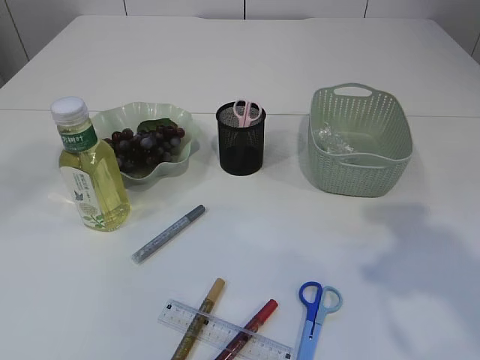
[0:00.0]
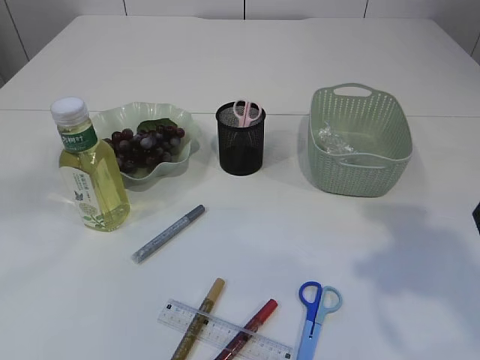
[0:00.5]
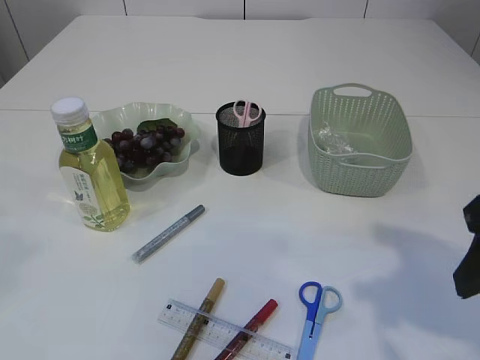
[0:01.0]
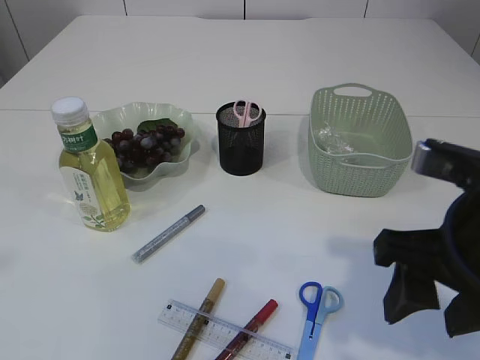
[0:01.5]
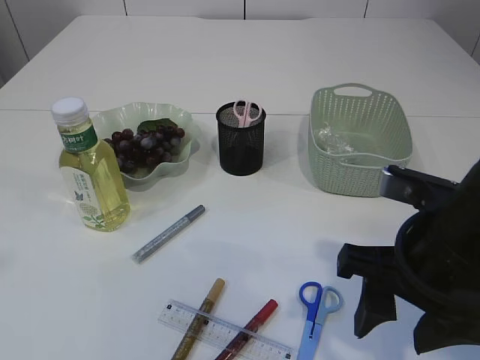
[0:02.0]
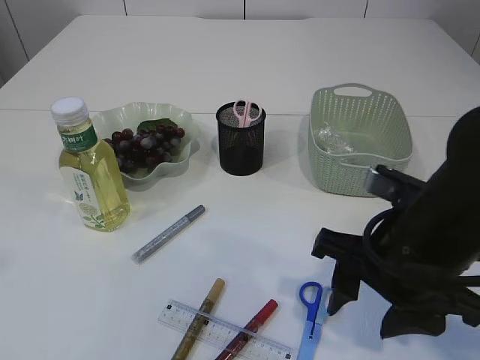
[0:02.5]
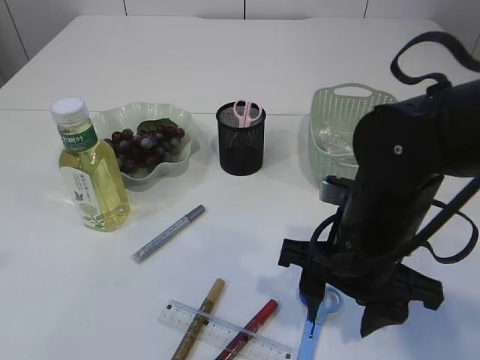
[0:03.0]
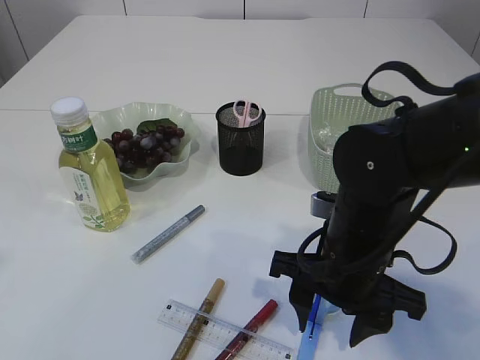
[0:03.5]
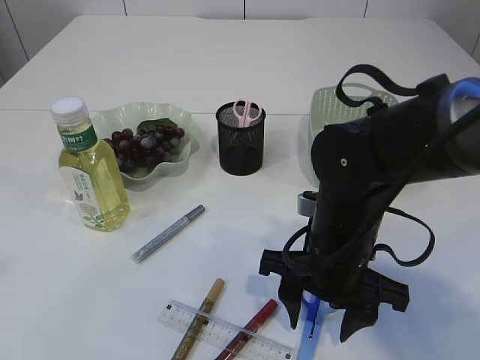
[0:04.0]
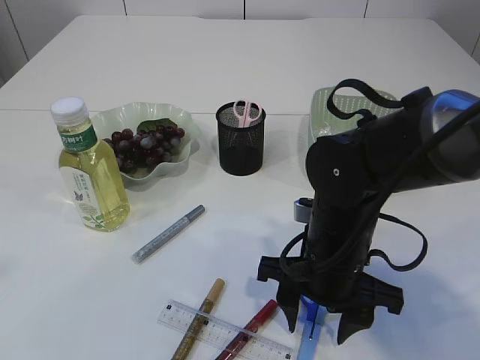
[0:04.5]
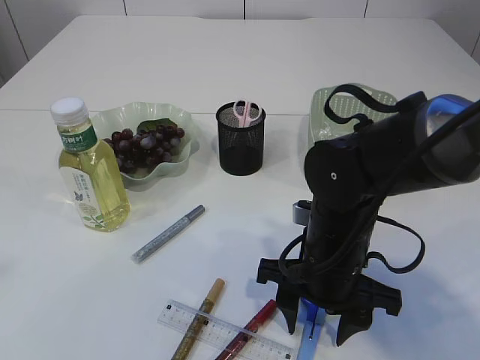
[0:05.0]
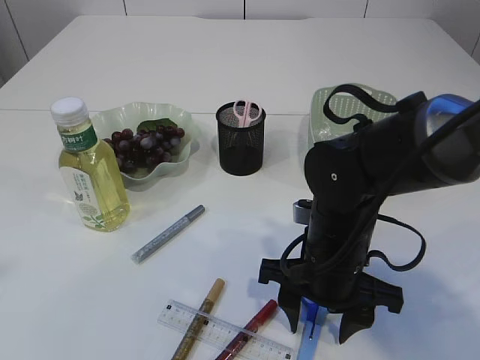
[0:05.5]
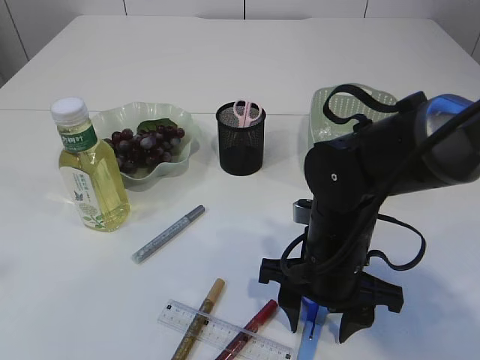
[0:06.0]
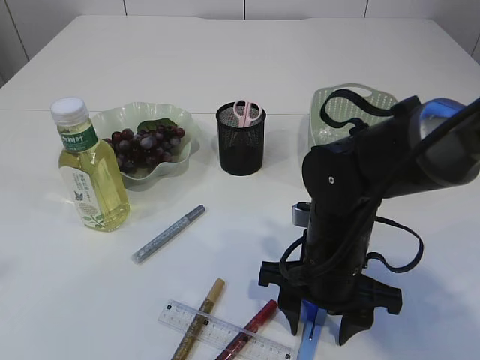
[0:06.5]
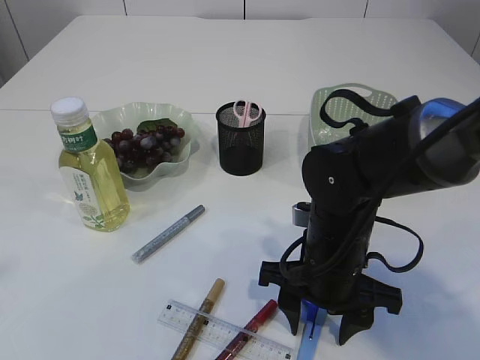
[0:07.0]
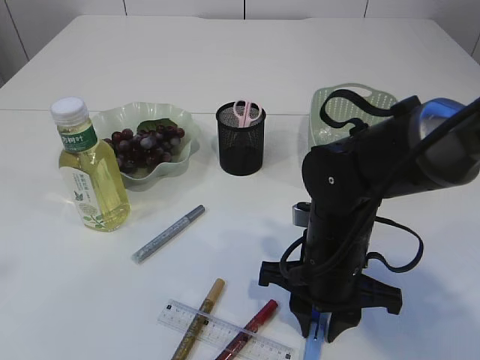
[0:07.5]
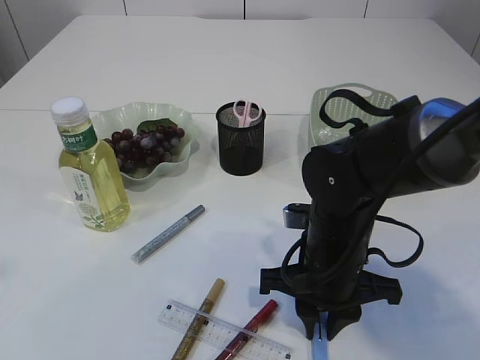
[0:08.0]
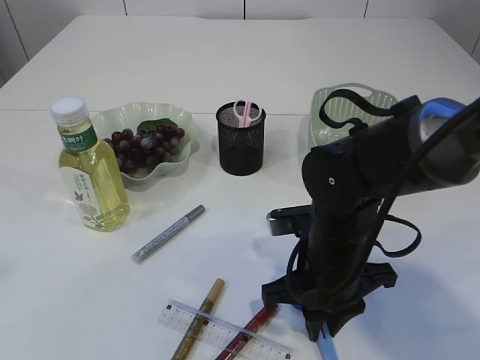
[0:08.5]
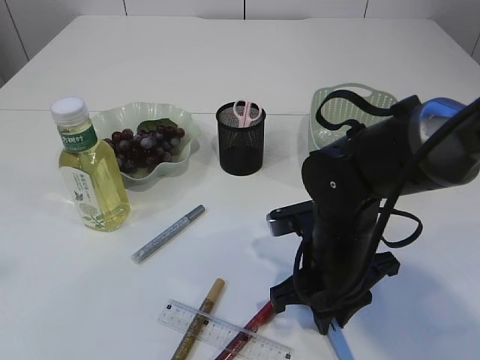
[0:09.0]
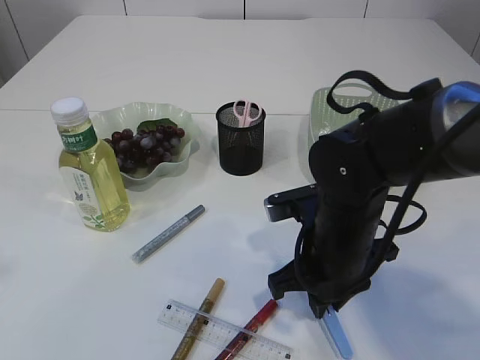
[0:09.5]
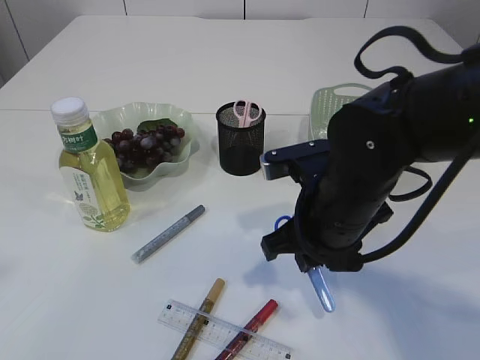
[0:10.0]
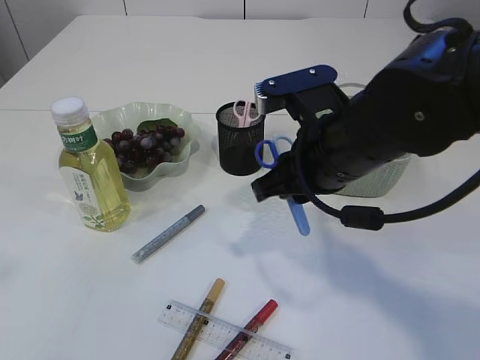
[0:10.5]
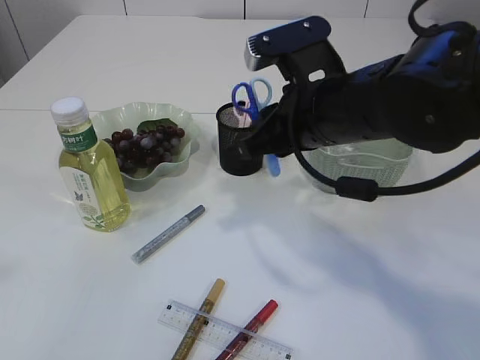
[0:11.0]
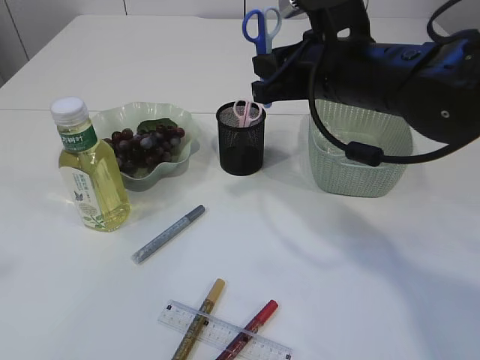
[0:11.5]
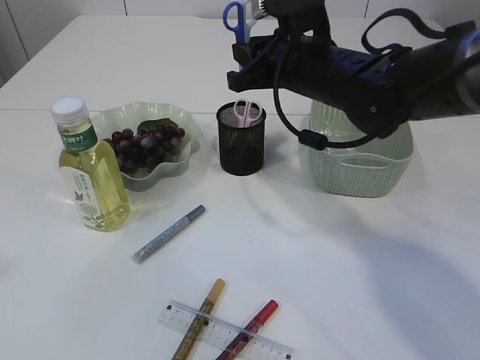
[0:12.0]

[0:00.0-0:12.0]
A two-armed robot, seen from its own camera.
Step, 0:00.0 to 0:10.0: pick up the blue scissors.
0:00.0 to 0:02.0: The right gripper is displaced downward and to the left by approximately 15 cm.
0:02.0 to 0:04.0: The right gripper goes about 10 cm downward, forward and to the left.
0:04.0 to 0:06.0: The grippers make only small movements.
0:06.0 to 0:08.0: The right gripper closes its fingers.
0:08.0 to 0:10.0: The right gripper shifts roughly 5 cm upward.
0:10.0 to 0:12.0: The right gripper shifts some 15 cm forward and upward.

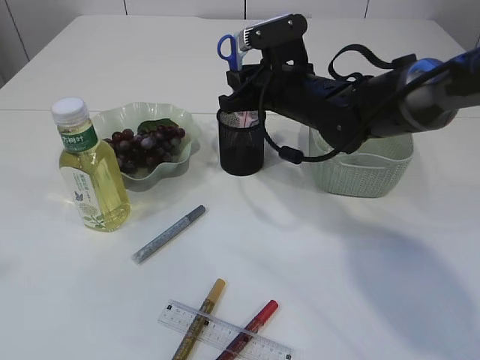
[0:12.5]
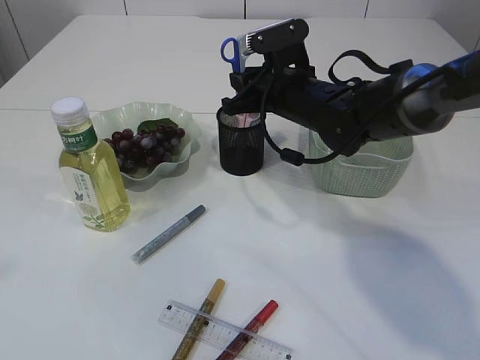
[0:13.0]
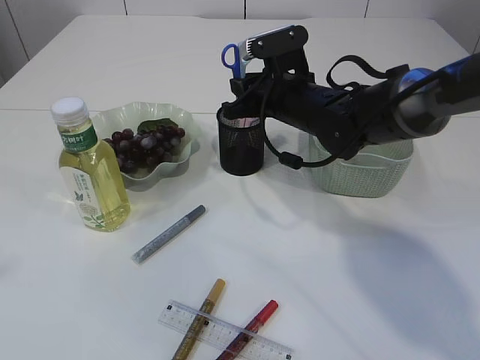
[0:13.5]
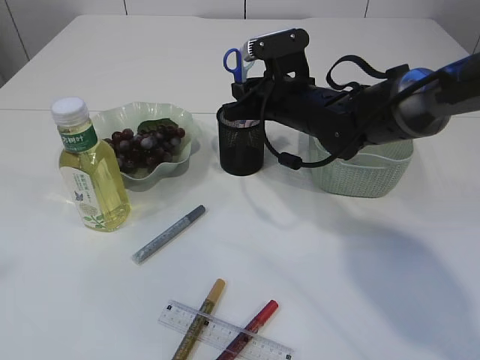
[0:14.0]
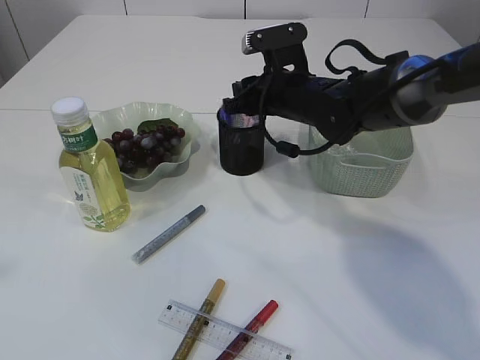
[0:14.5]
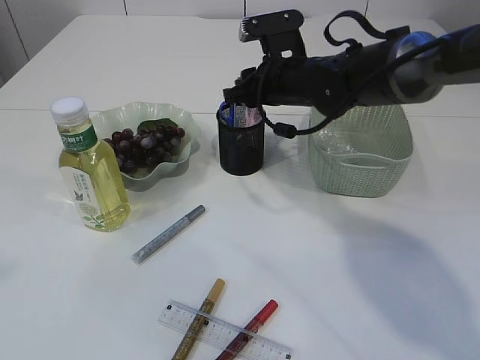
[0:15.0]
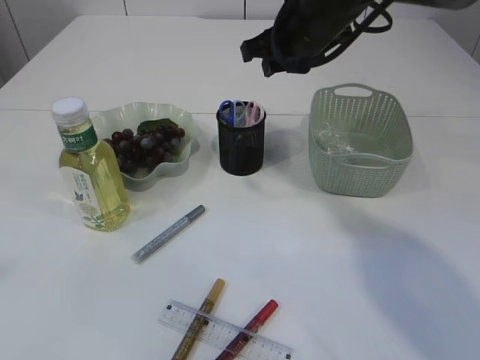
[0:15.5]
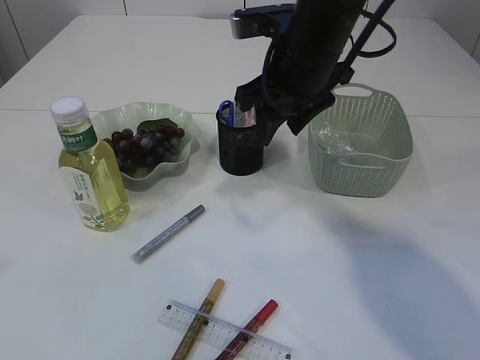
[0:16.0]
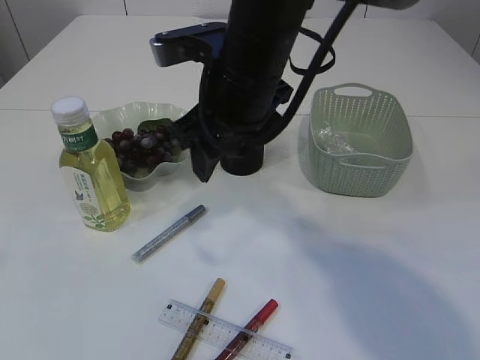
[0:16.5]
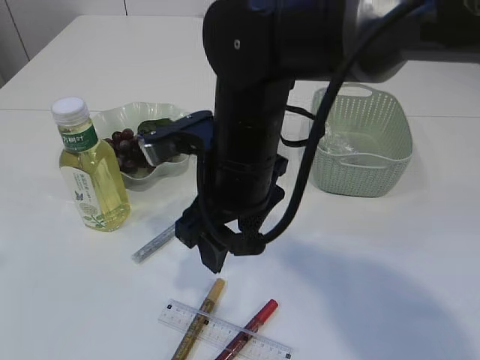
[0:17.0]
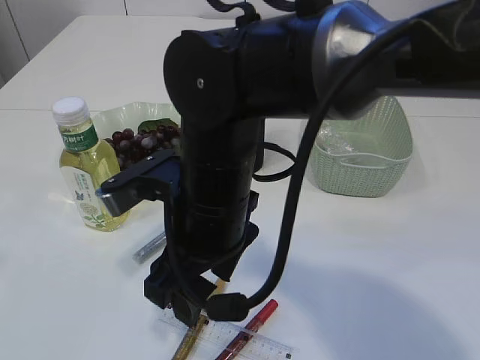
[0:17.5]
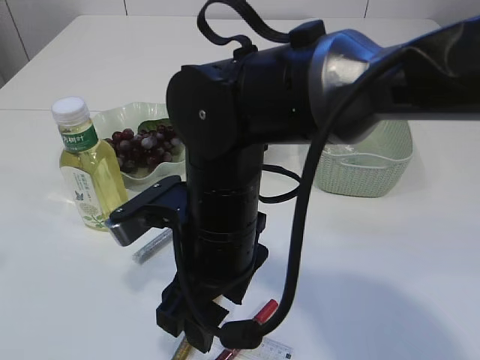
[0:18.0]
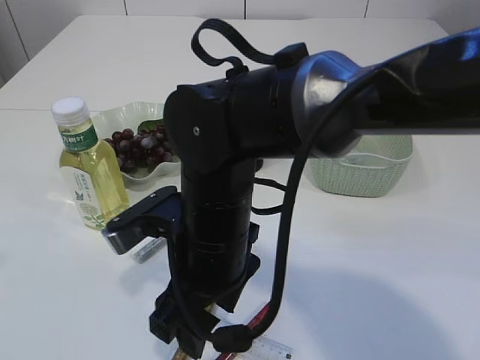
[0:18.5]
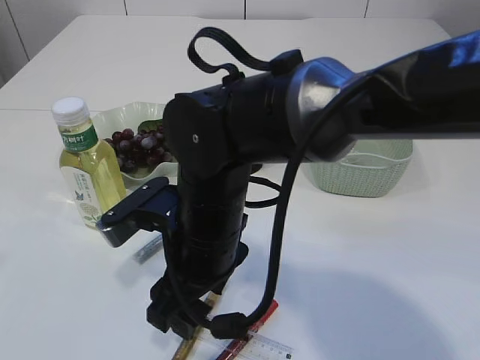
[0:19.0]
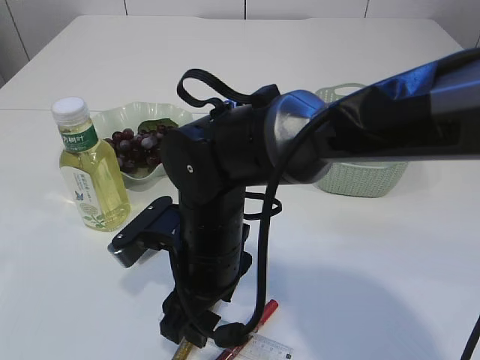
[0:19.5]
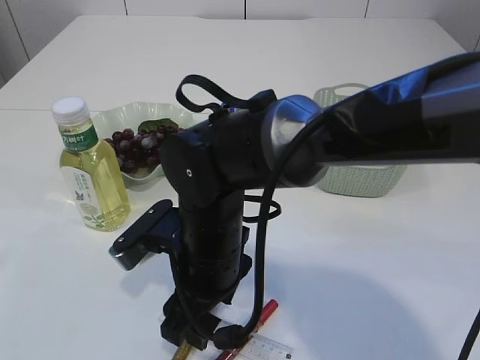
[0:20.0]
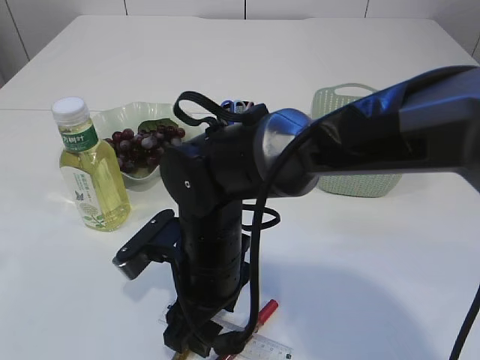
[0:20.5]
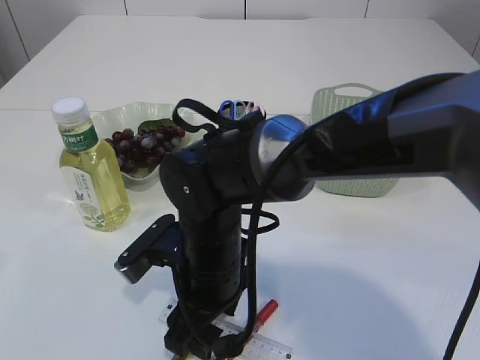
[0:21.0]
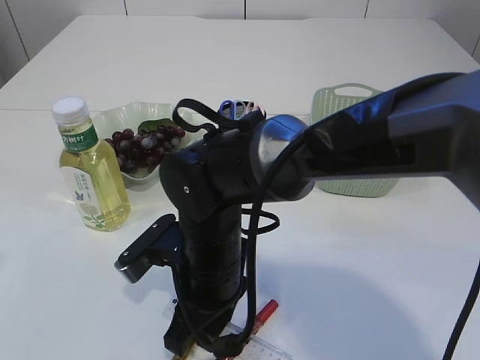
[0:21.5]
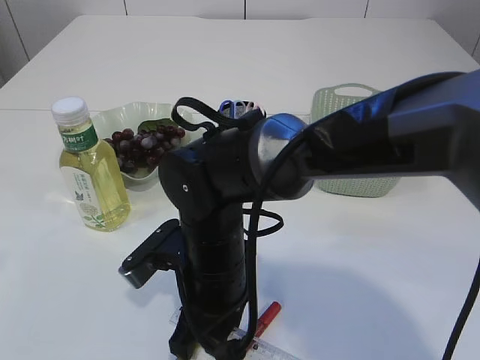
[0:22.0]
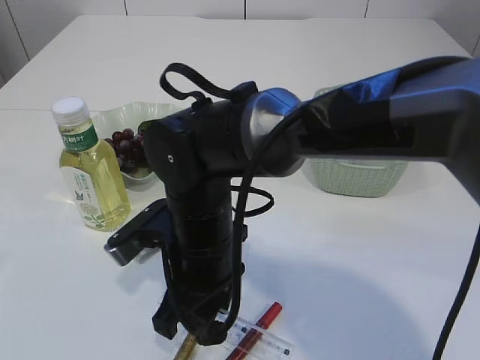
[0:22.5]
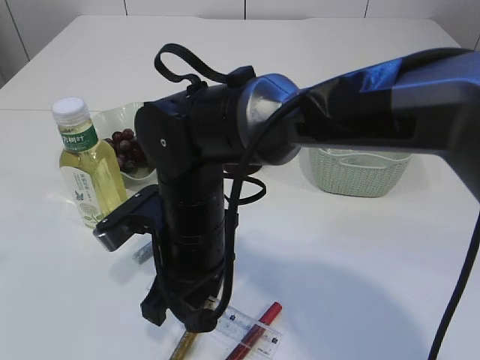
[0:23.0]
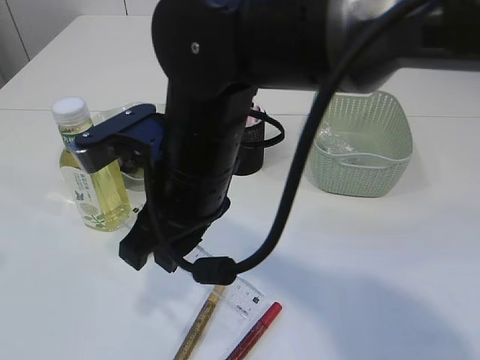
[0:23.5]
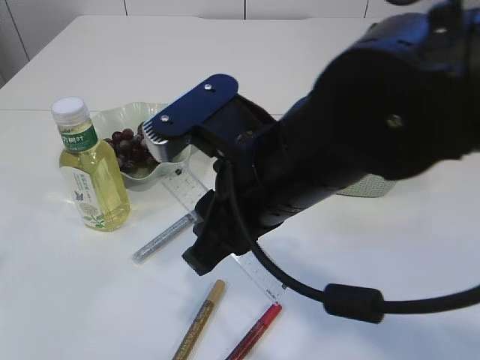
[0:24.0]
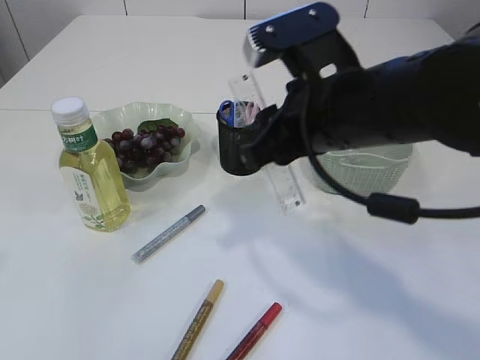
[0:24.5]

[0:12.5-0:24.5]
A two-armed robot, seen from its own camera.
Step, 0:12.5 to 0:15.0: Place the blue scissors into the pen holder.
Step, 0:15.5 to 0:23.0: pick up the ruler.
0:12.5 to 0:14.5: There are only small adjustments of the grippers.
0:14.5 to 0:16.5: The right gripper moves backward, upward and to the left, approximately 15 cm, and opens.
0:16.5 to 0:18.5: The right gripper heads downward and backward, covering some 15 cm.
0:18.5 to 0:20.5: The right gripper travels downward by approximately 5 cm.
0:20.5 to 0:22.5: The right gripper closes.
0:22.5 to 0:24.5: The right gripper heads upward and to the right, covering roughly 15 cm.

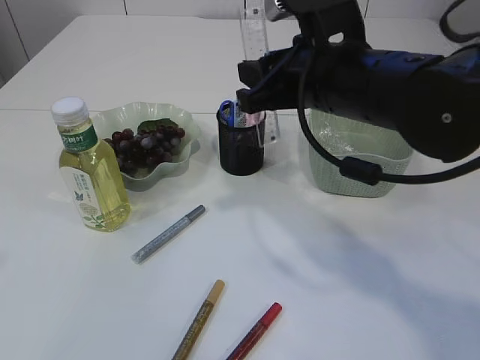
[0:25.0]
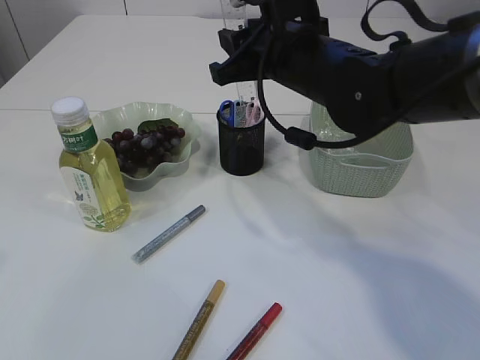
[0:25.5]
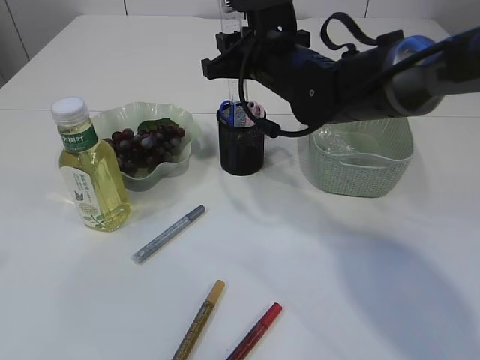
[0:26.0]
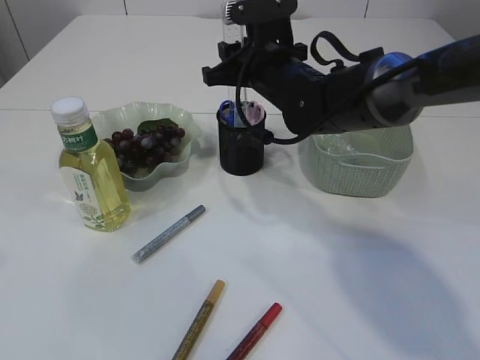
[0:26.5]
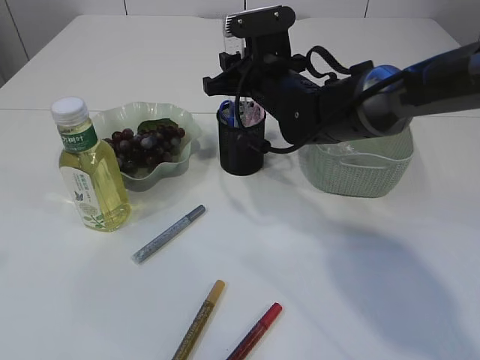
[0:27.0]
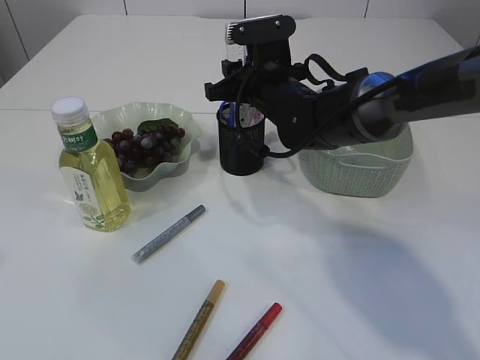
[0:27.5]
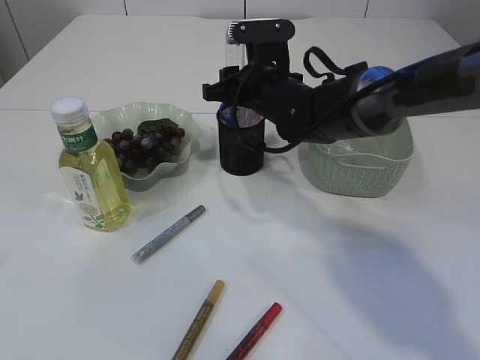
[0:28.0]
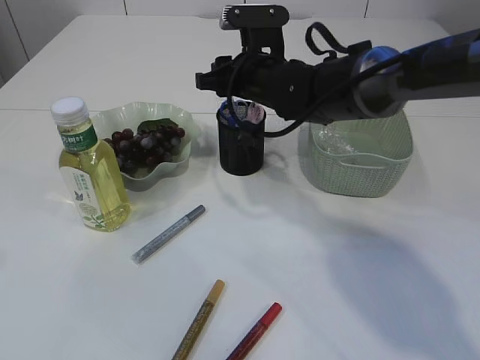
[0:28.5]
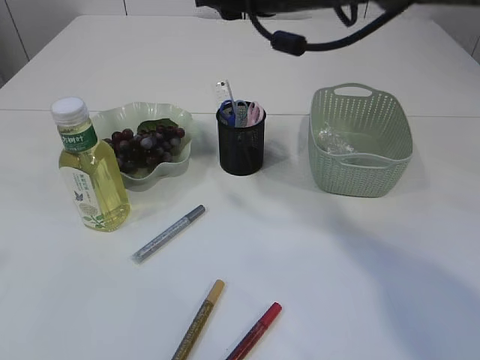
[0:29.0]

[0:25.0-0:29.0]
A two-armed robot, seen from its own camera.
Step, 0:25.0 to 0:28.5: Place the ruler into the pen holder.
0:25.0 to 0:27.0: The right gripper moves forward and downward, about 15 cm.
0:27.0 to 0:29.0: The right gripper heads upward, covering some 15 cm.
